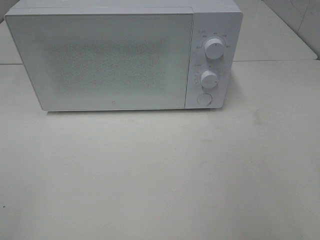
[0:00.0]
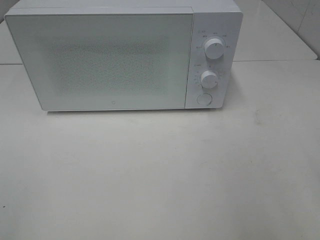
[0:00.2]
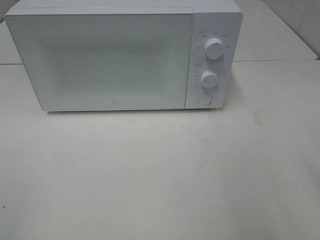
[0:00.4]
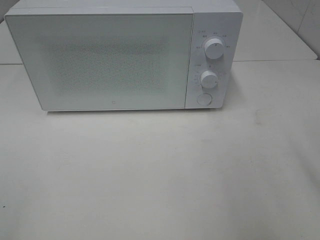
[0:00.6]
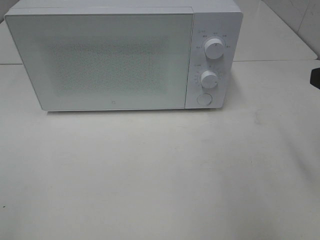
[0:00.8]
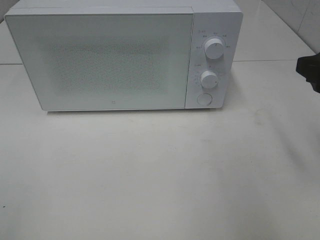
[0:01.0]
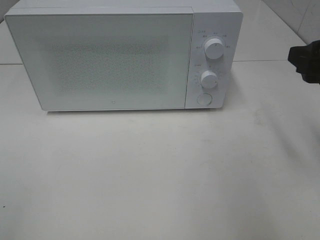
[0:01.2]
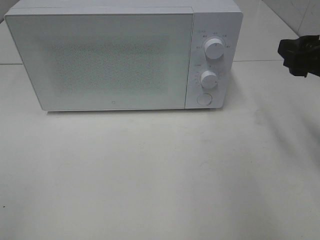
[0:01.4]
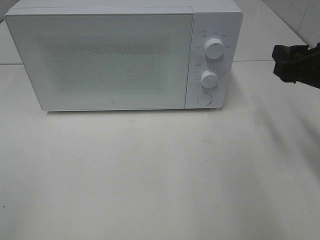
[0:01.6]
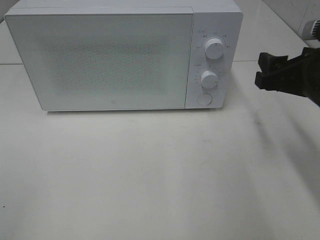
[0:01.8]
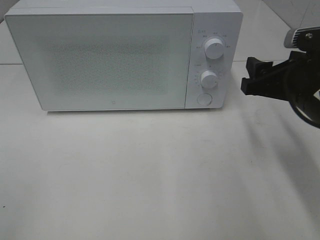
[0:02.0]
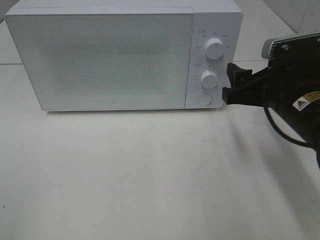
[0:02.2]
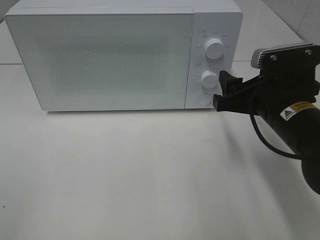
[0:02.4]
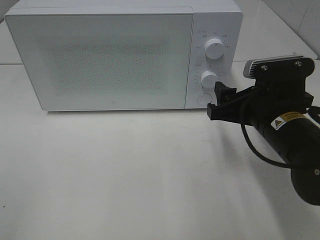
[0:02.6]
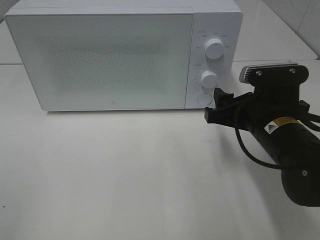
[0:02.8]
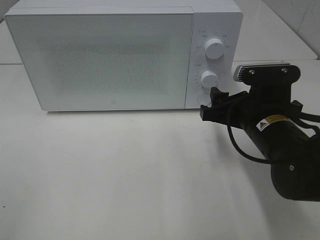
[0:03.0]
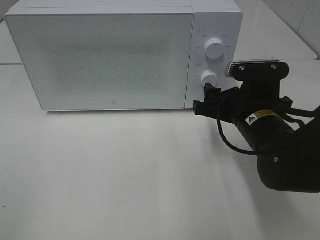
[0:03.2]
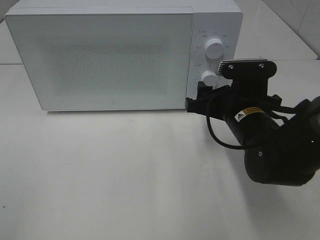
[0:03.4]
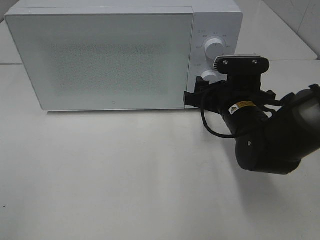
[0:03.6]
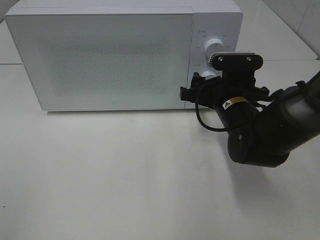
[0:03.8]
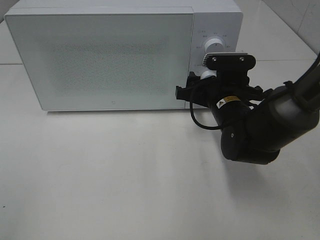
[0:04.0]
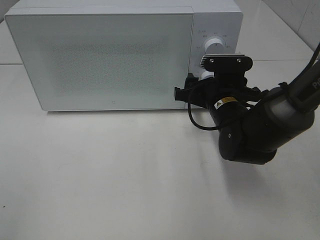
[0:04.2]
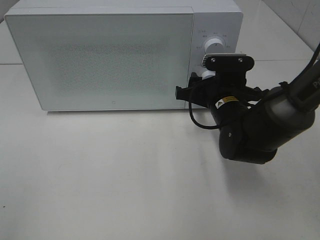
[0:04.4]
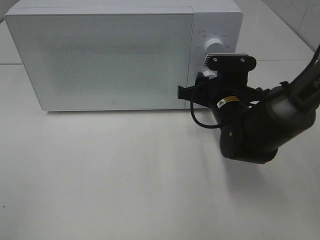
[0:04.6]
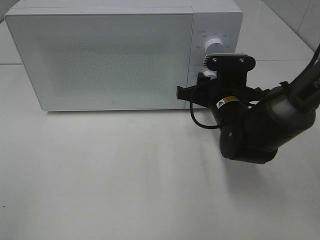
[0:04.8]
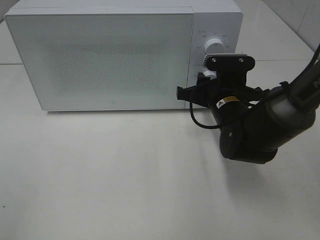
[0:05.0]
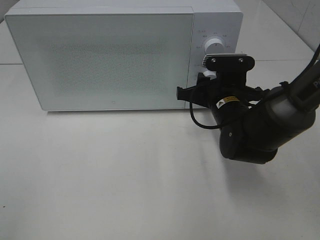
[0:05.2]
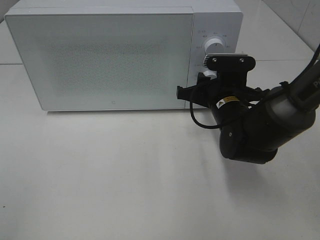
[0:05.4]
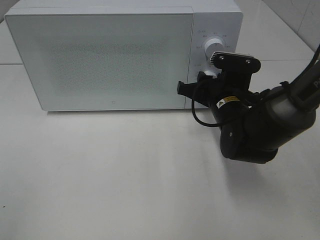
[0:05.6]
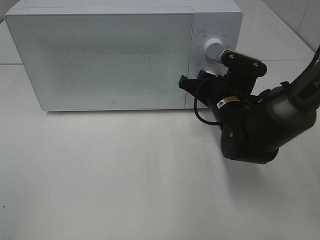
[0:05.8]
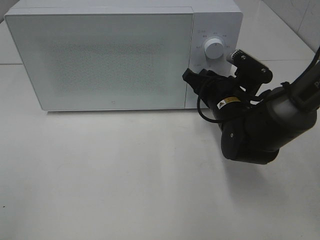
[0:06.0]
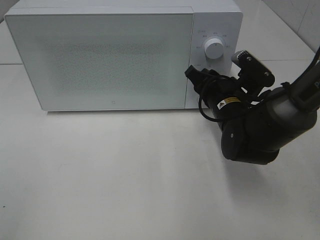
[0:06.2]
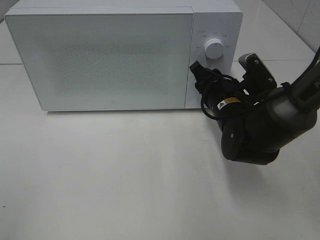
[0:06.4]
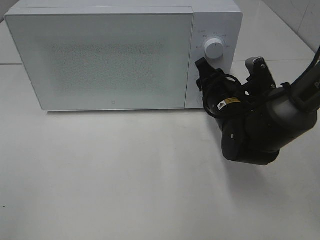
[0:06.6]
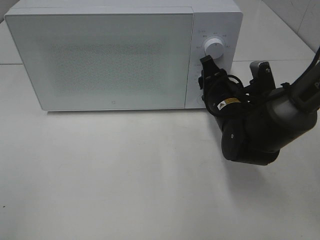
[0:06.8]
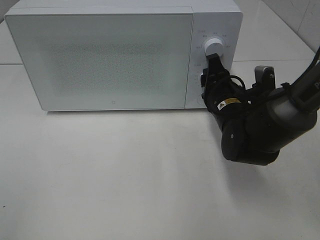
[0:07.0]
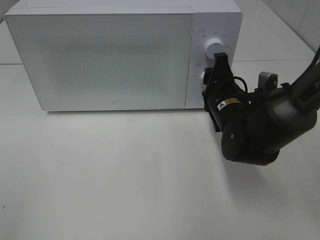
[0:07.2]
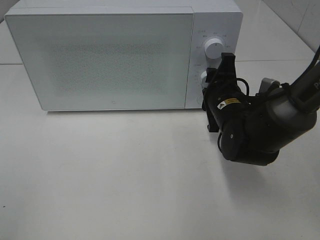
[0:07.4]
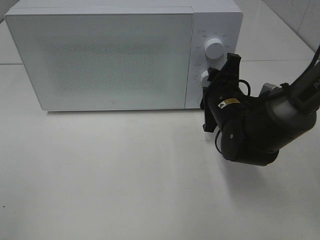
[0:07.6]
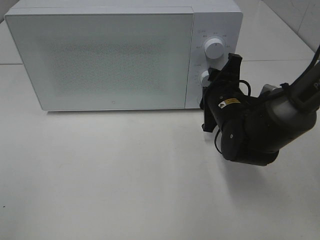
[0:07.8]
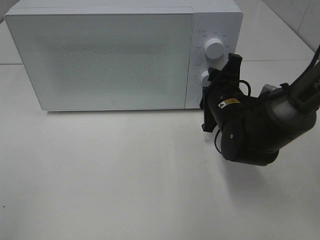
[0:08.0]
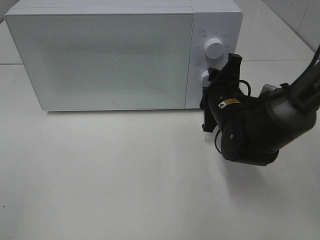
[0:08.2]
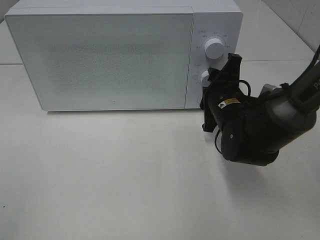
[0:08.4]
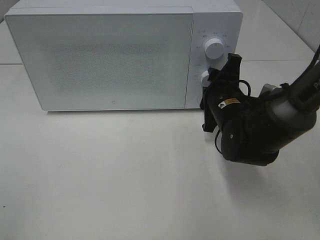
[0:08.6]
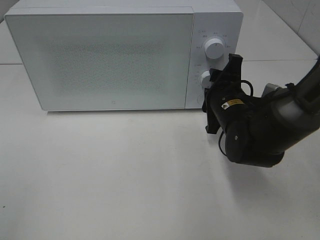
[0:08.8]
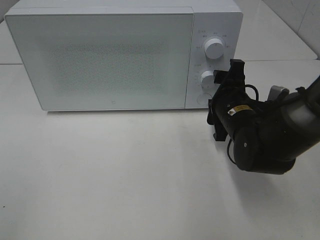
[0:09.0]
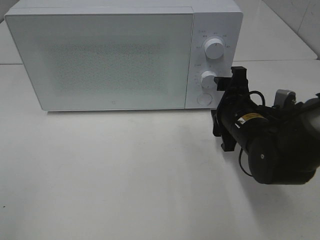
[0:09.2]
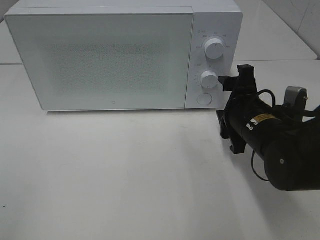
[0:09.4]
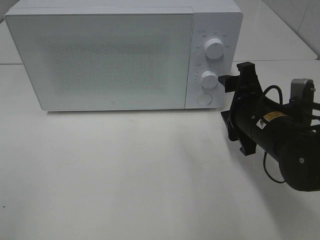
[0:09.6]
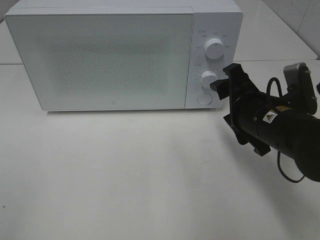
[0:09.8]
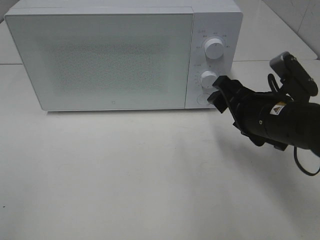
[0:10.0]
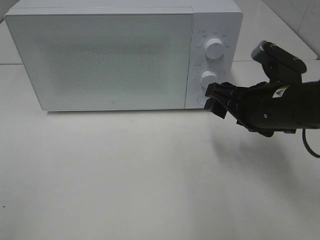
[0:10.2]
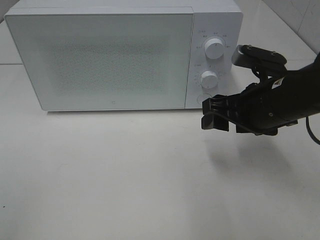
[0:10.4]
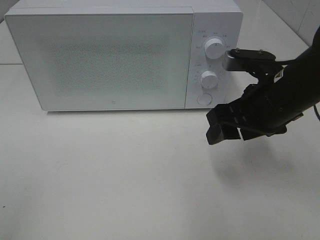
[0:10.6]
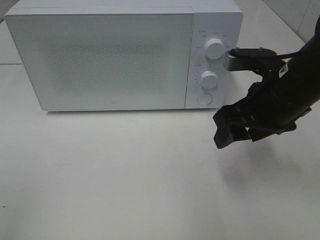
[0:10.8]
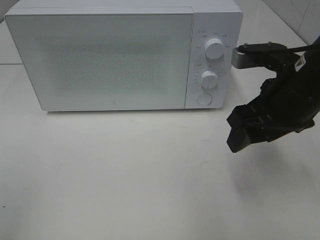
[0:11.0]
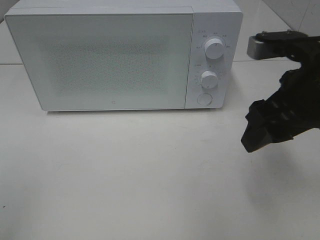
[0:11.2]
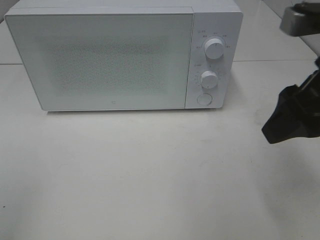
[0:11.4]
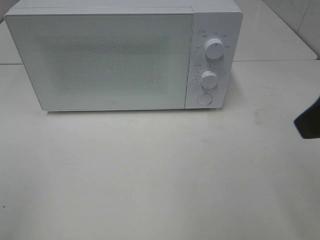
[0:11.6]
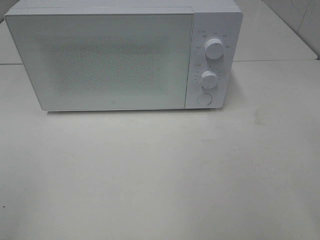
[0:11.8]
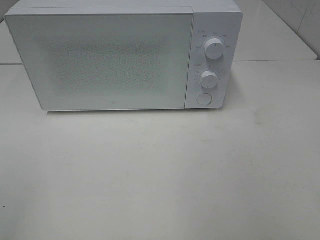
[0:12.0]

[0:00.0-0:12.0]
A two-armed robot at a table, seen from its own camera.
Task of the whole recording: Heat the burger.
Step, 0:00.0 to 0:09.0: Right hand: twist timer button.
0:00.0 to 0:01.6: The right gripper shifts roughly 20 cm forward and downward.
0:01.6 to 0:03.0: The right gripper goes roughly 10 cm to the left and downward.
0:03.0 to 0:04.4: The right gripper goes approximately 10 cm forward.
0:07.6 to 0:09.0: The grippers make only small movements.
0:09.0 to 0:10.4: The right gripper travels upward by some 10 cm.
0:10.4 to 0:12.0: The right gripper heads backward, upward and to the right, covering approximately 30 cm.

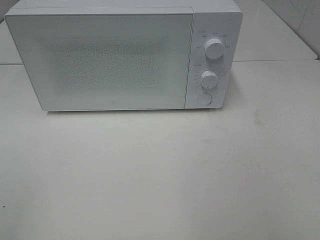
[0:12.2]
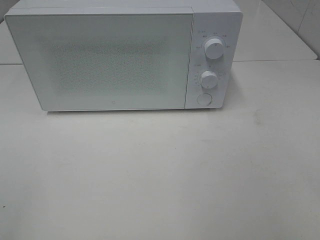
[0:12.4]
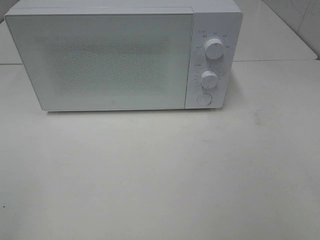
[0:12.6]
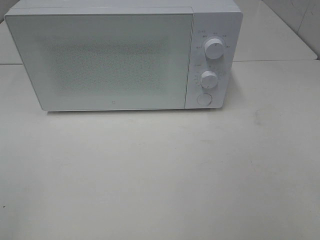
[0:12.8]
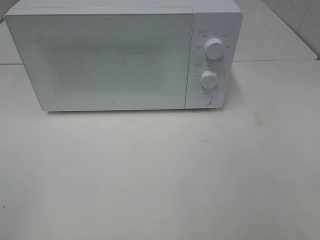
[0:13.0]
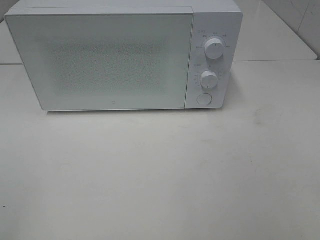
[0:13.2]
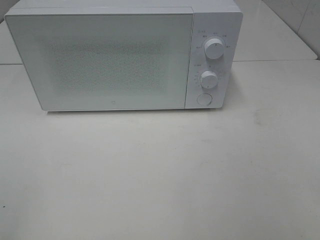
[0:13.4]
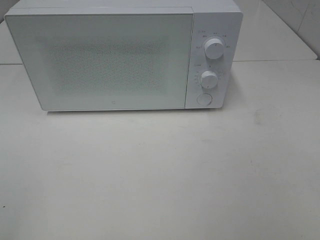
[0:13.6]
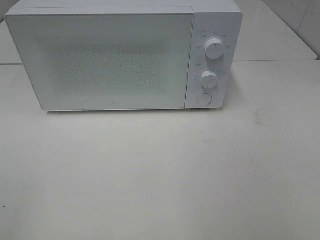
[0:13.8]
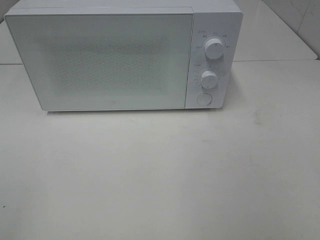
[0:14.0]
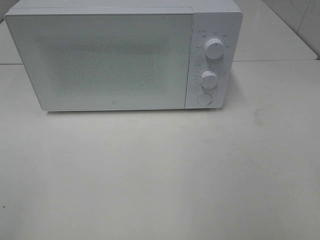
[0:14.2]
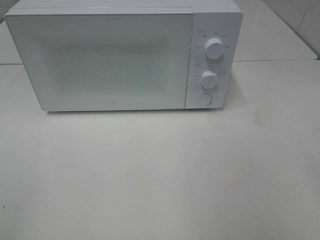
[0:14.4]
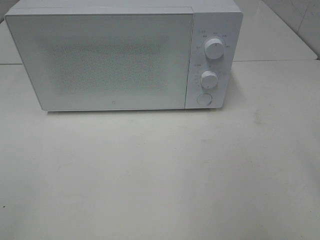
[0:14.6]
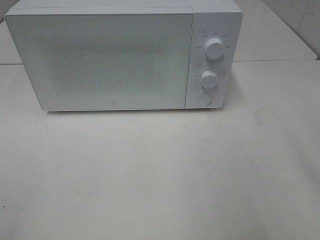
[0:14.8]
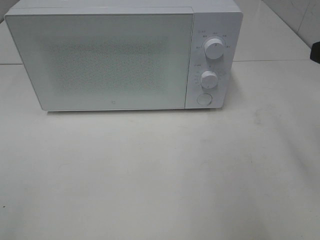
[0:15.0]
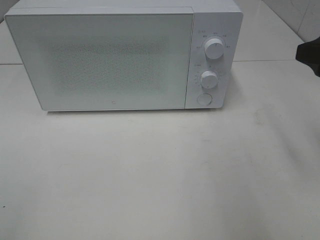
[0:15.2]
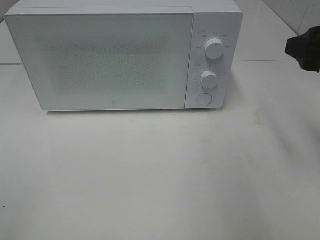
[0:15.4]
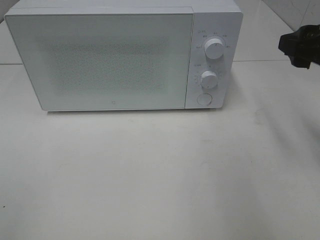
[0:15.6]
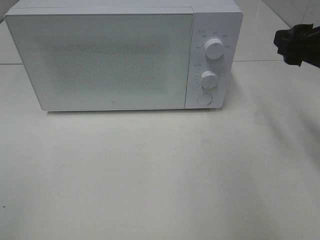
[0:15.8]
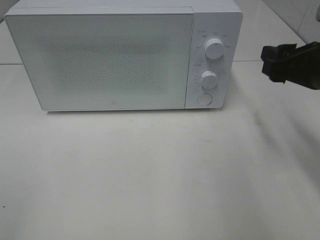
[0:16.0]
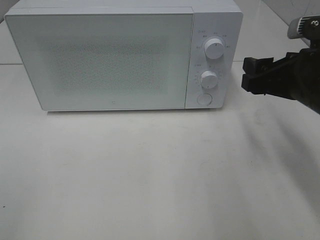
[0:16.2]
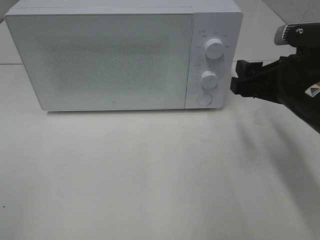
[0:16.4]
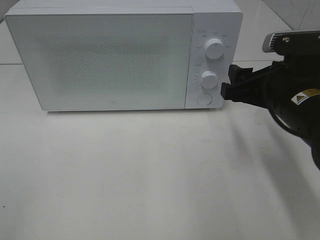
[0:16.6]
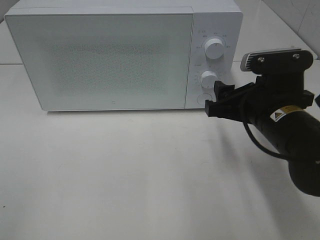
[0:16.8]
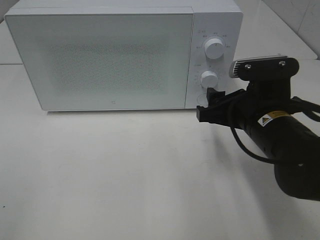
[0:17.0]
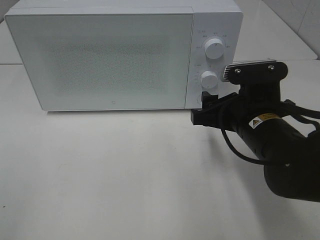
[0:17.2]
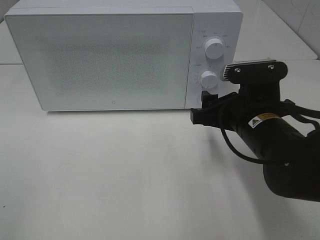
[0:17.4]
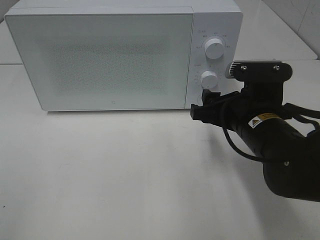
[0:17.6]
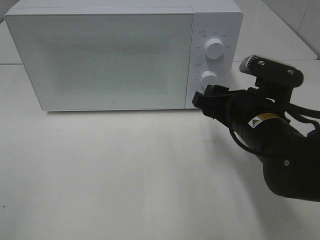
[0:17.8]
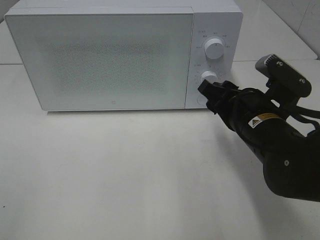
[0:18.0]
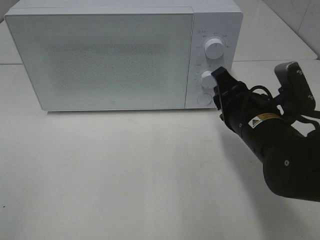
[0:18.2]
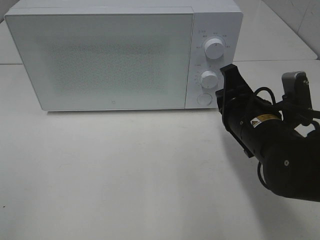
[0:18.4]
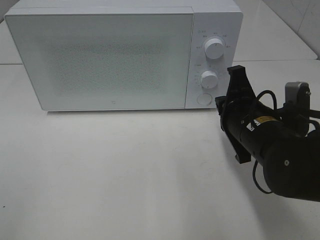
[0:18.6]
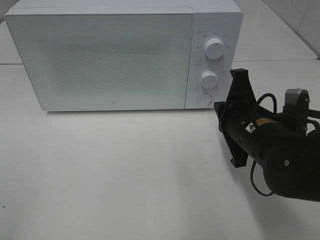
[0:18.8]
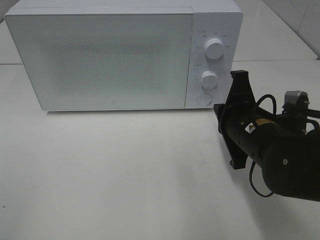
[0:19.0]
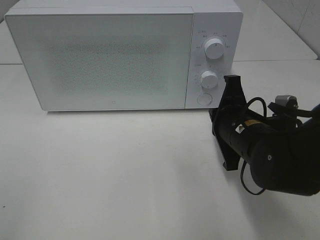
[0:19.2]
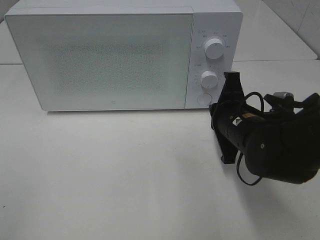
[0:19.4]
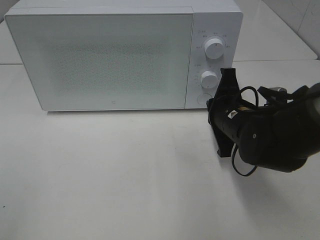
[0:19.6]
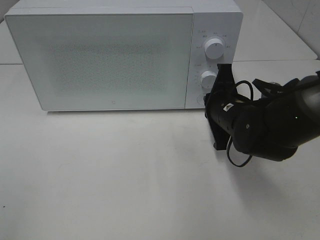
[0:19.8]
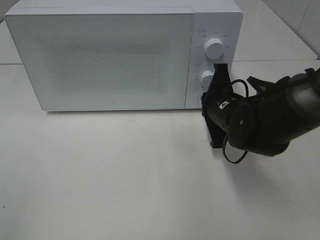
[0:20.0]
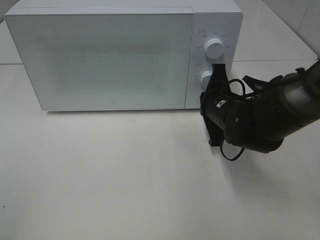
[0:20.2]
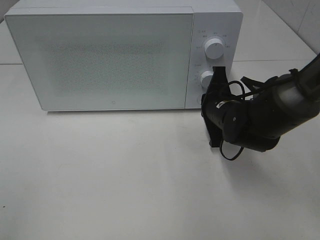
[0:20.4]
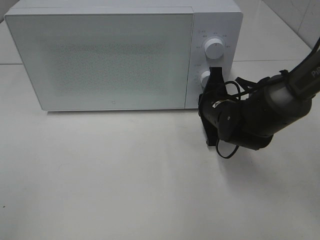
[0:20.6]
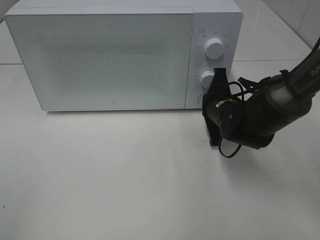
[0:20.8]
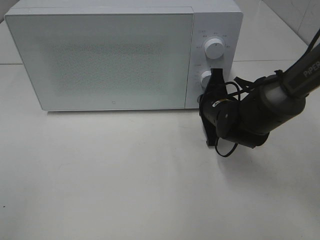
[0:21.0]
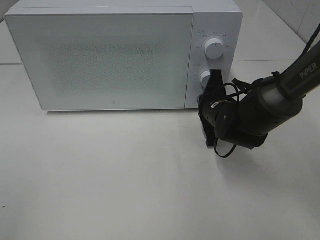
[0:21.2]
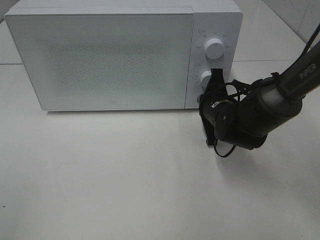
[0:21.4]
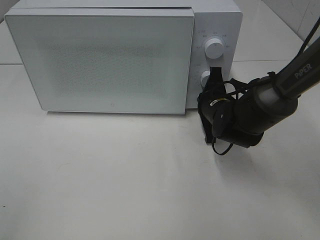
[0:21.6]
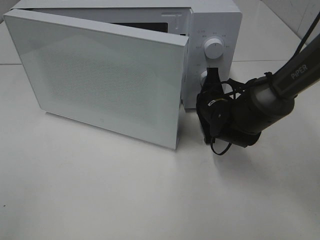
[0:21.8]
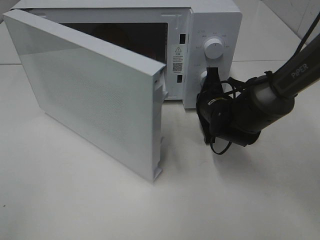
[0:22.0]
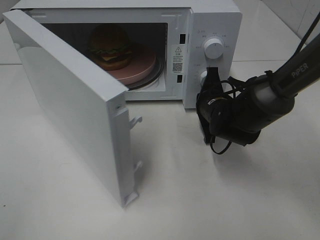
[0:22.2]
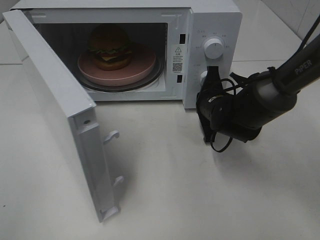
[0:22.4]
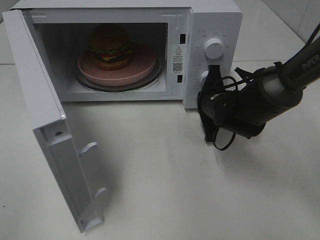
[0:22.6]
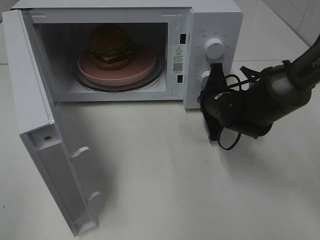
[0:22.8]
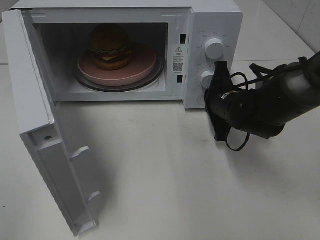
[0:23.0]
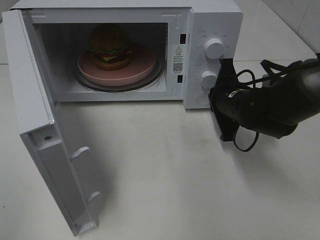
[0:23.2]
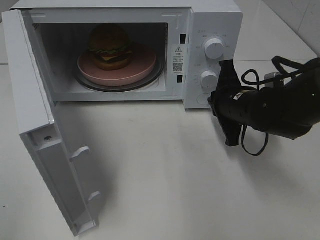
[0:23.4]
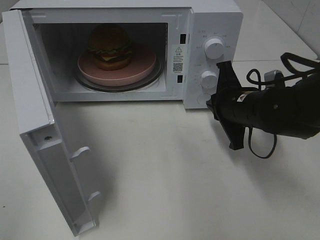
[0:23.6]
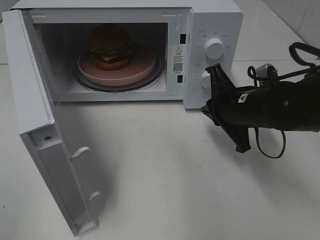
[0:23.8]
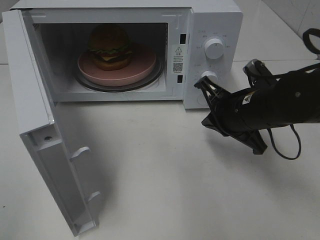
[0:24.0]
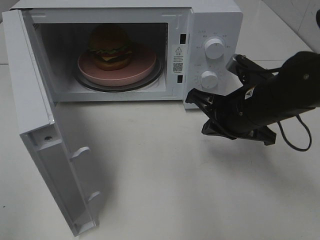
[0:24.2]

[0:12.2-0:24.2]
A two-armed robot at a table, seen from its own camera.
Task of the whole recording: Heat the burger.
Step, 0:12.2 to 0:23.4: Right hand: press the switch.
0:13.8 to 0:15.2: The right gripper is displaced forward by some 20 cm.
0:15.2 to 0:16.6: The right gripper travels downward and to the left by approximately 10 cm.
0:16.6 to 0:18.2: The right gripper ends up roughly 5 cm from where it was, and closes.
0:18.2 to 0:19.8: The right gripper heads forward, covering roughly 5 cm, and closes its fingers.
0:19.8 to 0:21.2: The right gripper changes place by some 5 cm.
0:22.6 to 0:24.2: The right gripper goes about 10 cm backward and upward.
